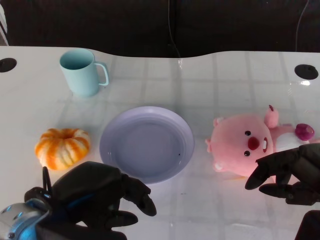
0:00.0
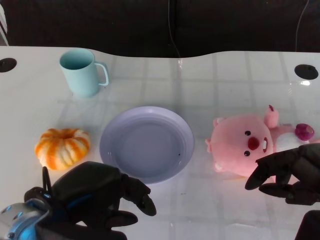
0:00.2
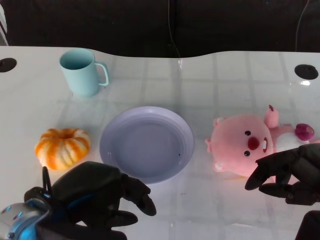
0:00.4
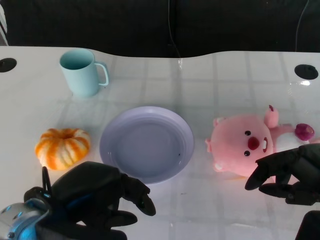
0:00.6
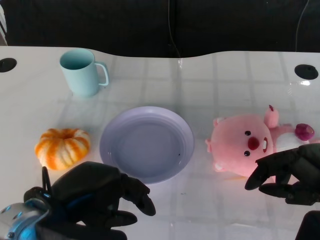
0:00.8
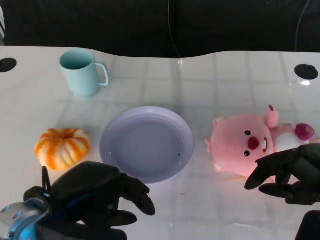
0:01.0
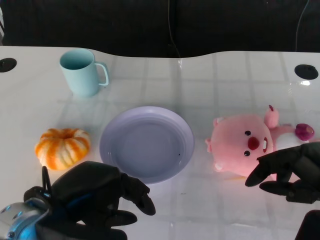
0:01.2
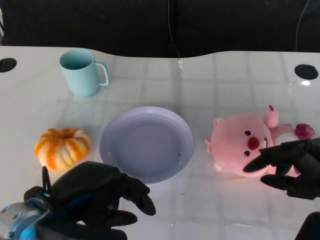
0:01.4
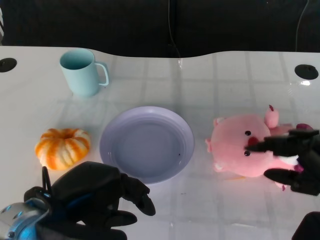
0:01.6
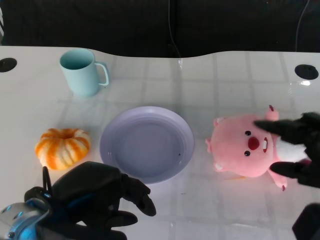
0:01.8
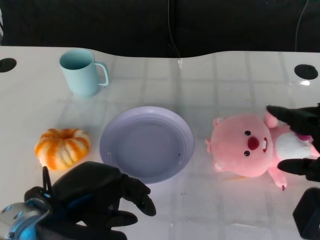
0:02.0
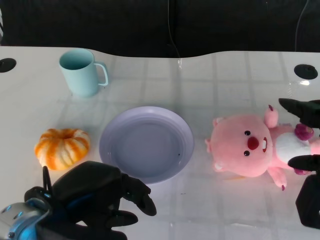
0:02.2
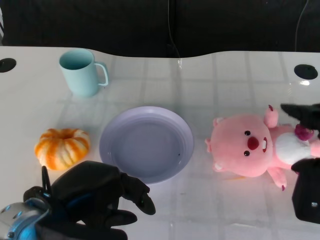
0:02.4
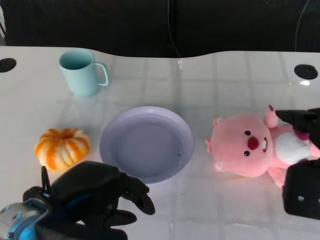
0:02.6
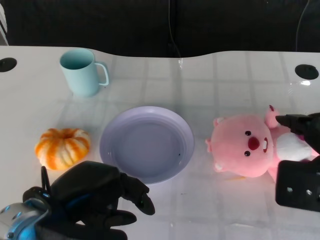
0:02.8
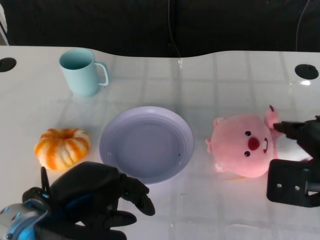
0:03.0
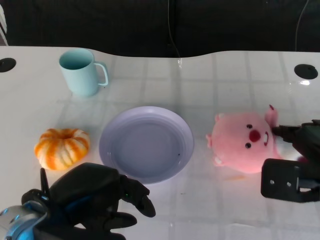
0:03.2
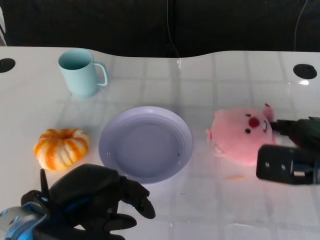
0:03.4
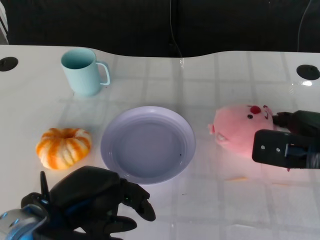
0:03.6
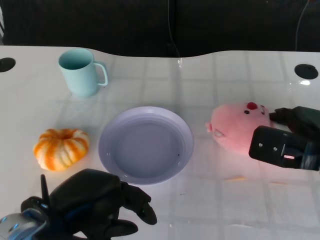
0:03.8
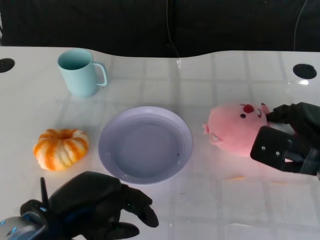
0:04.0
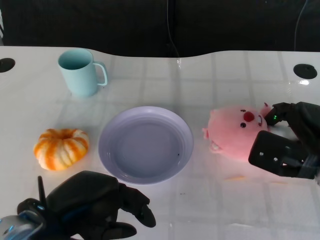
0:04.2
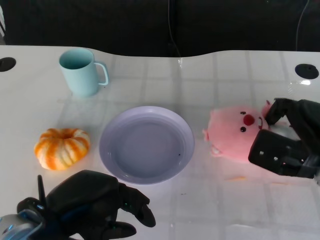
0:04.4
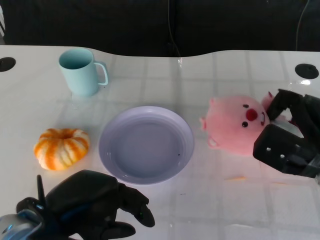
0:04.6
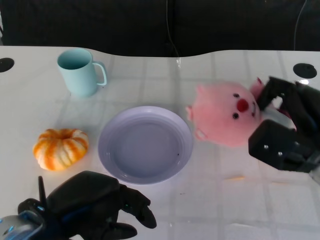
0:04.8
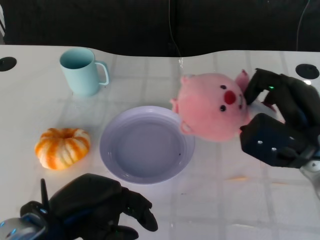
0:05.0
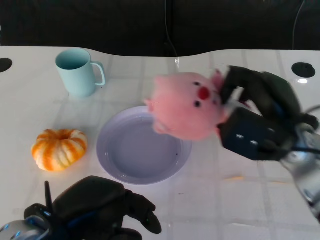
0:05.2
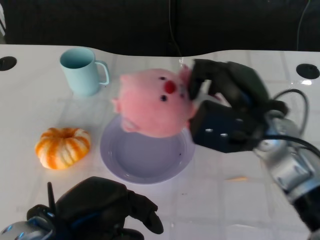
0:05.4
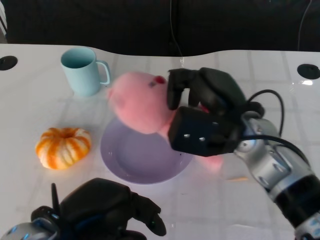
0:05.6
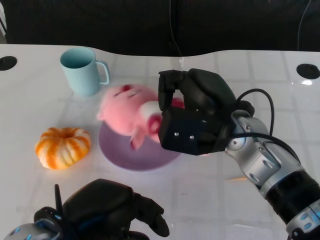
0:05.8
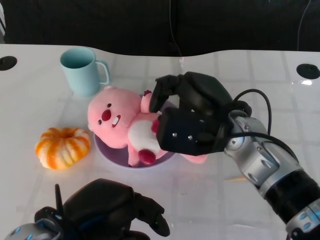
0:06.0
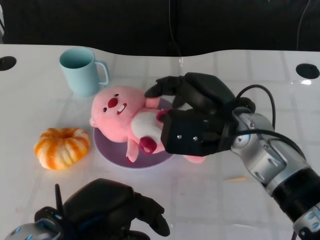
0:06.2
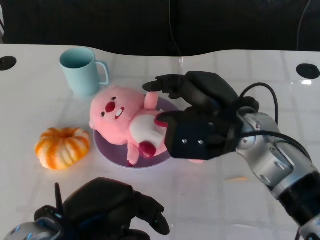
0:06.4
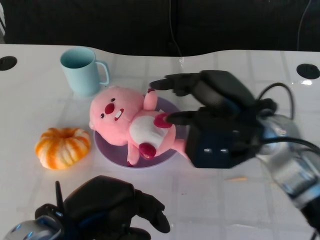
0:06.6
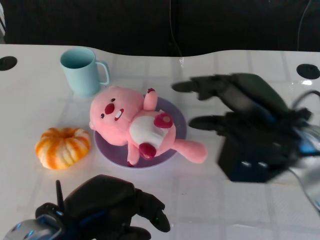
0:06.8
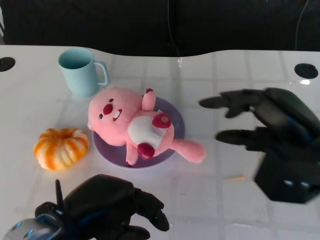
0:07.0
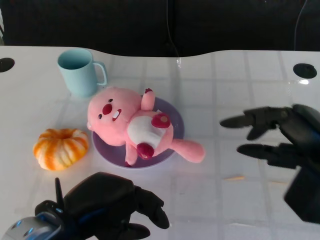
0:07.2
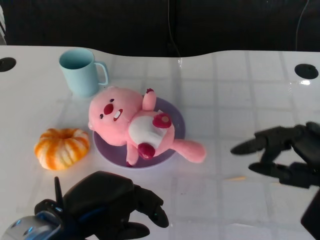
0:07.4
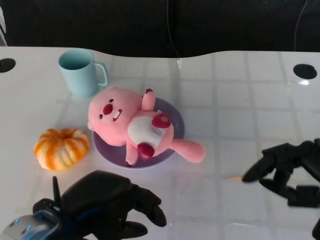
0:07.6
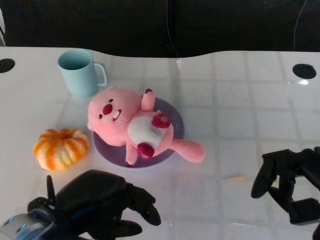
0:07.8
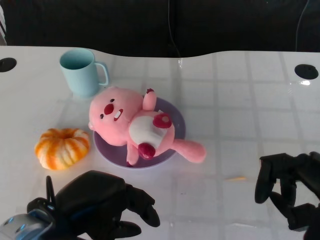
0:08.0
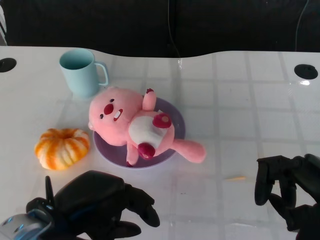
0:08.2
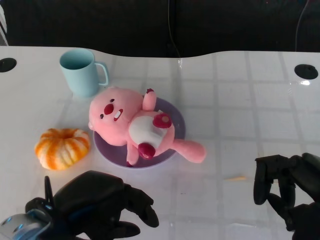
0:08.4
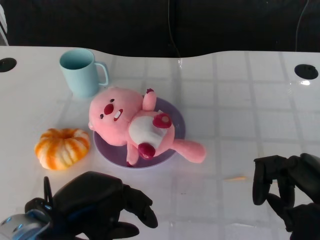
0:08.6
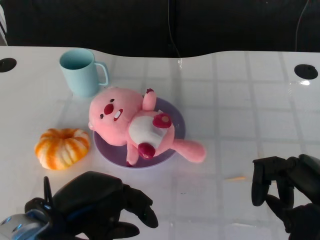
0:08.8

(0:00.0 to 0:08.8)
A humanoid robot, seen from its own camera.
Task of the whole recording: Pick up the doll on the other side of the plate and place it into the plate.
Step, 0:01.4 - 0:04.8: Grasp the pink doll with the right gripper.
Step, 0:05.0 - 0:06.6: Place the pink doll into the plate with the right gripper.
0:03.0 - 0:04.4: The right hand is displaced forward and downward by roughly 10 cm.
0:04.4 - 0:05.8: The right hand is displaced to the left and upward by some 15 cm.
0:05.8 - 0:07.4: The right hand heads to the right and backward, covering approximately 20 cm.
0:07.4 - 0:08.8: The hands stay close to where they were, moving slightly.

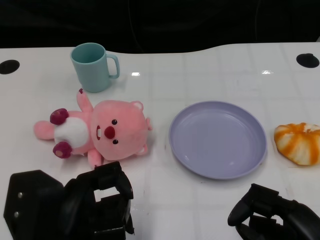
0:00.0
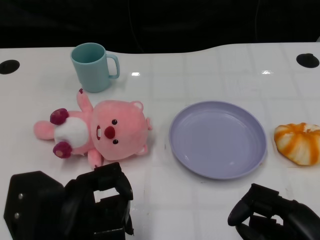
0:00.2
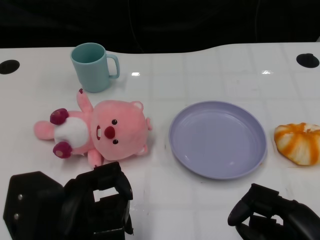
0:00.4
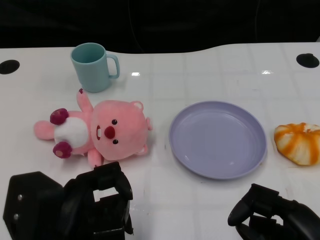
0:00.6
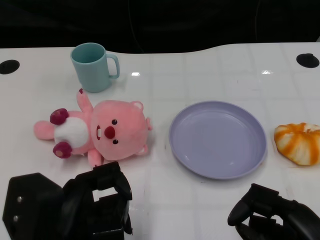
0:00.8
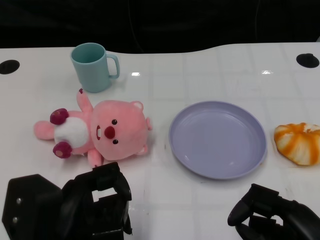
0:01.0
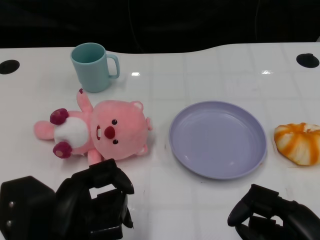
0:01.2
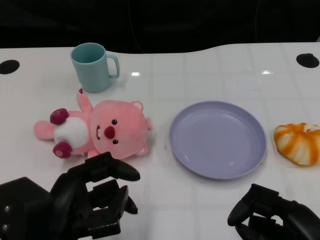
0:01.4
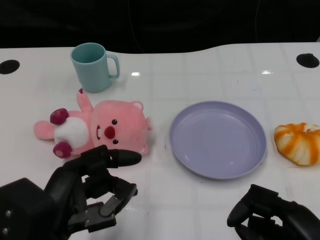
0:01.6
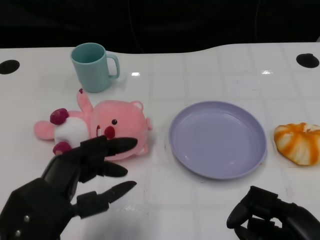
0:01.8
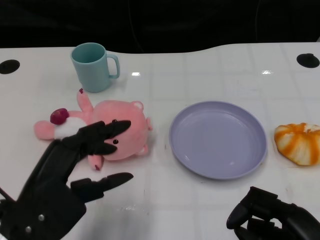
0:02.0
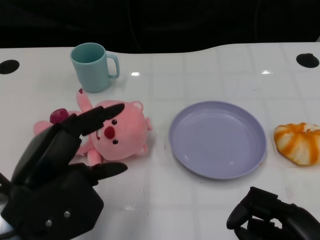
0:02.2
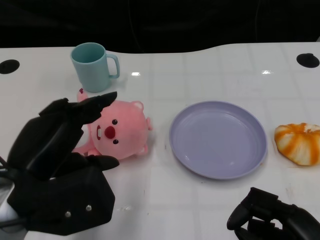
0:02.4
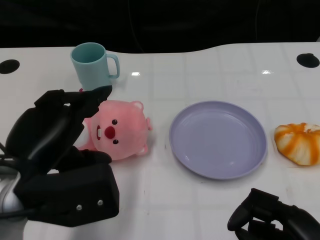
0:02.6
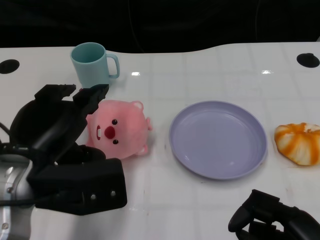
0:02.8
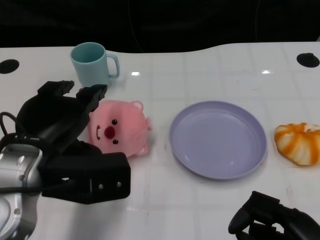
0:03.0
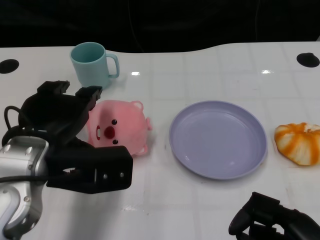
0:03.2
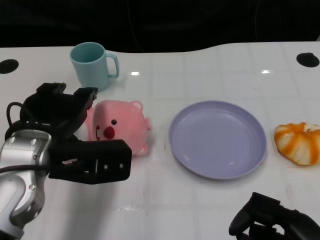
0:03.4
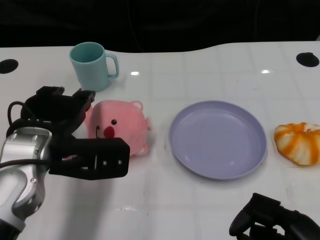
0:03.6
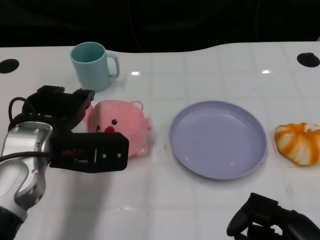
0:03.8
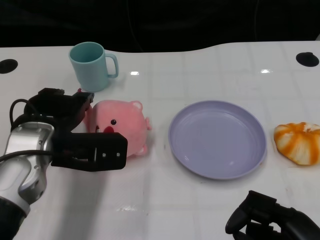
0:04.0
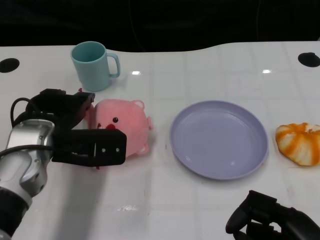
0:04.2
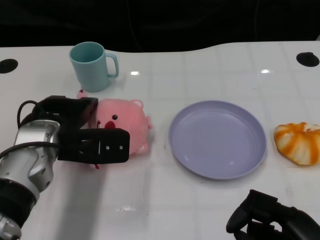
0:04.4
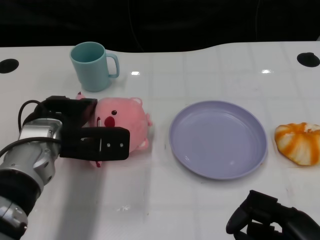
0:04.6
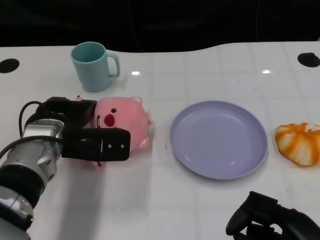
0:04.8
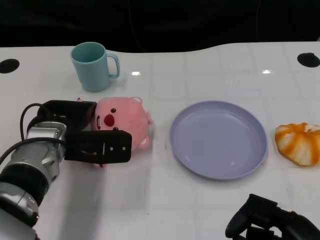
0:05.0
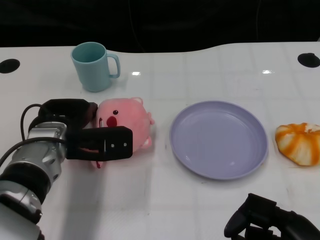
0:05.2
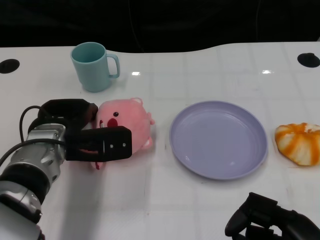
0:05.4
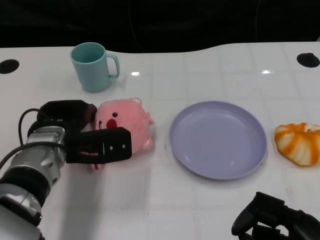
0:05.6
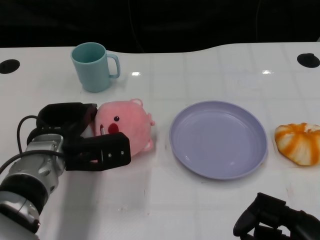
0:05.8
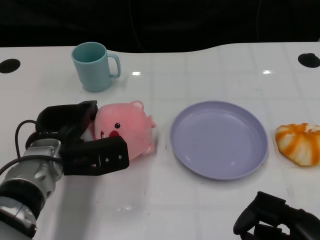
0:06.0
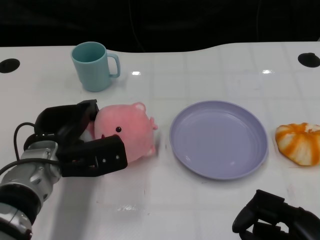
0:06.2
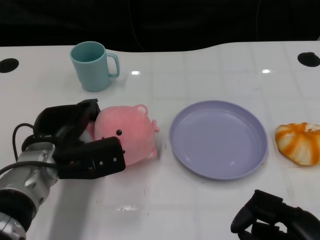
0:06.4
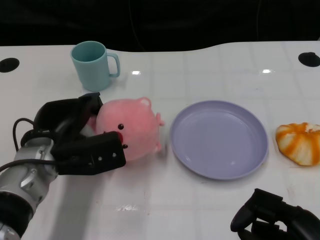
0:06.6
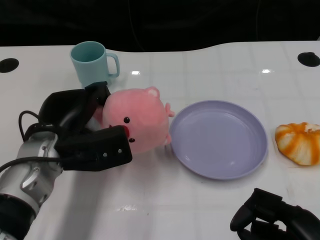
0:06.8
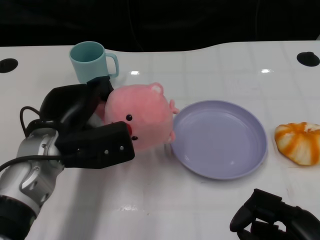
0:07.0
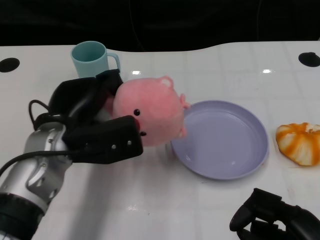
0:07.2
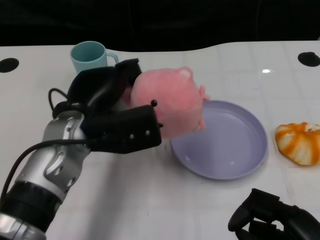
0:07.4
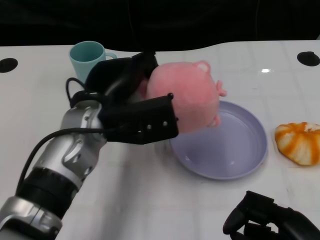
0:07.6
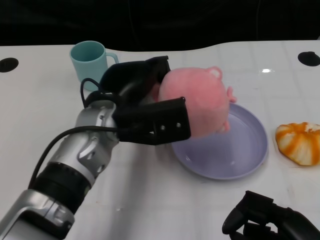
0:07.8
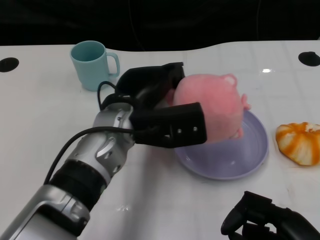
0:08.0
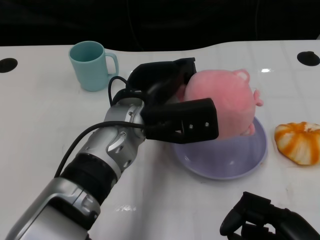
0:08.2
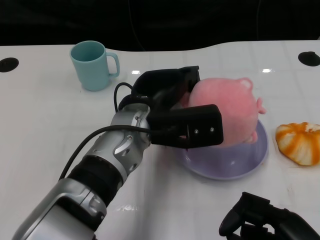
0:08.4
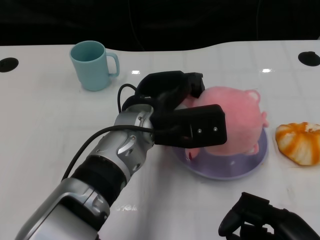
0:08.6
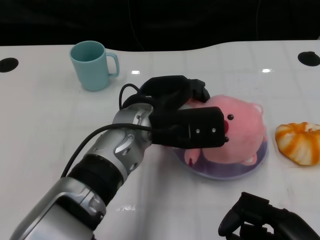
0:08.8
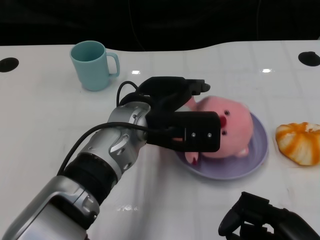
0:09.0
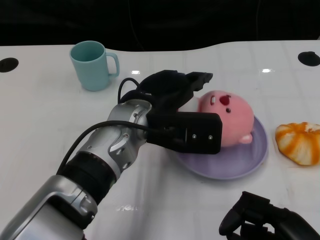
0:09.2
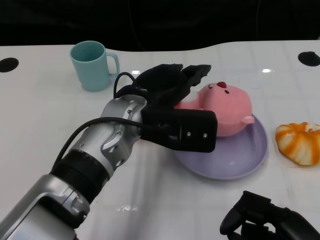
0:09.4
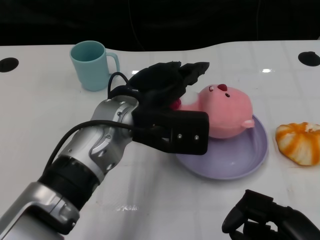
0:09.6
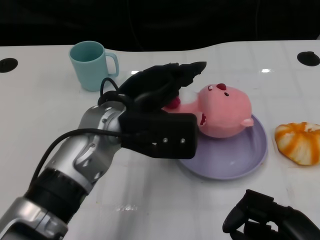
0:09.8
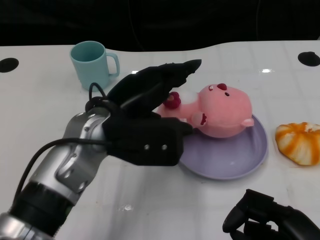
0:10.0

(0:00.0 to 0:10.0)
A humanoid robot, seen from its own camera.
Task of the whole recording: Pick up the doll on one side of the plate and place it into the plate.
Step, 0:00.8 - 0:06.6: Grasp the pink doll with the left gripper.
Step, 0:06.8 - 0:09.4: Place the pink doll into the plate with the left gripper.
0:01.4 - 0:02.8: The left hand moves forward and upward, about 10 cm.
0:02.8 - 0:04.2: The left hand travels forward by some 10 cm.
0:04.2 - 0:05.8: The left hand travels downward by roughly 5 cm.
0:05.8 - 0:07.2: The left hand moves upward, some 5 cm.
0:07.2 - 0:08.6: The left hand shifts roughly 10 cm to the right.
0:08.6 - 0:10.0: The left hand is displaced to the left by approximately 5 cm.

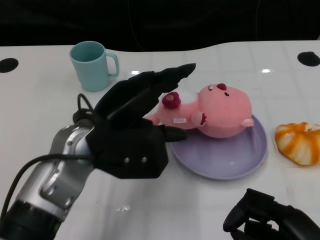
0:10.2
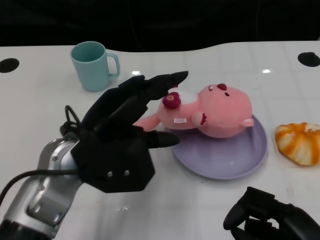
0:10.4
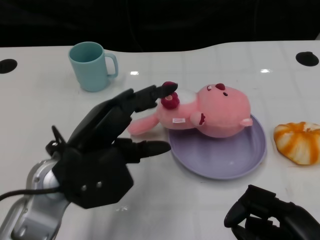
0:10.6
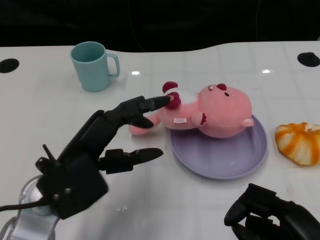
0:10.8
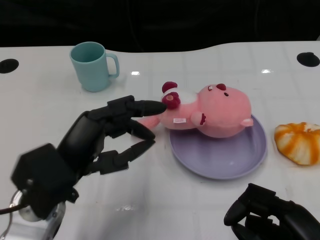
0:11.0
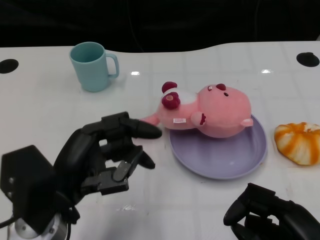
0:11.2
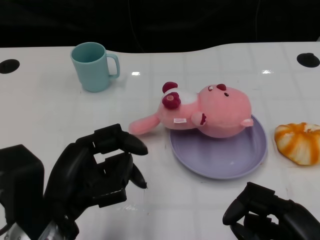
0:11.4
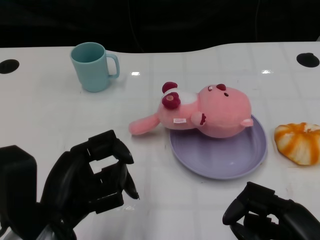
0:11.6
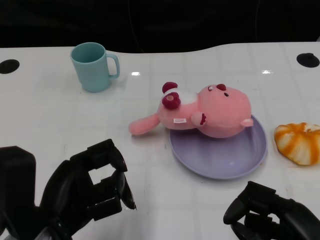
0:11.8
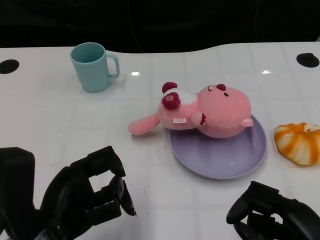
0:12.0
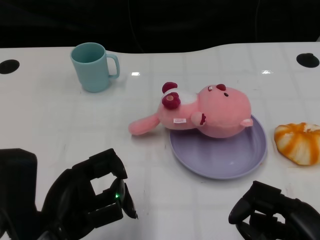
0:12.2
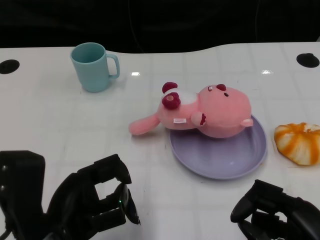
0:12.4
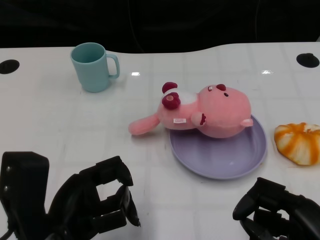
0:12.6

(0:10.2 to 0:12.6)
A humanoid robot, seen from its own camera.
Task of the whole recording: Pick up the doll on one side of the plate and place it into the plate.
0:10.2 - 0:11.4: The left hand heads backward and to the left, covering approximately 10 cm.

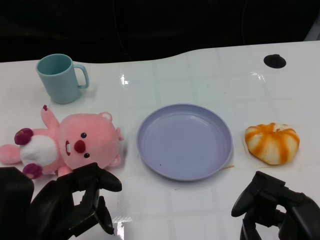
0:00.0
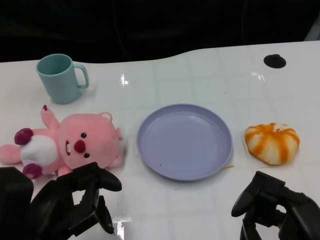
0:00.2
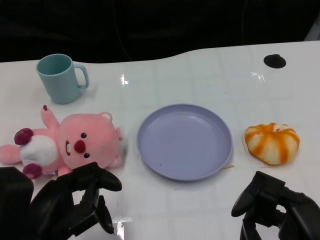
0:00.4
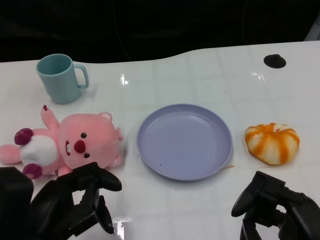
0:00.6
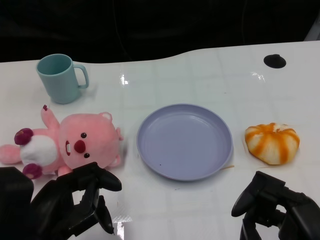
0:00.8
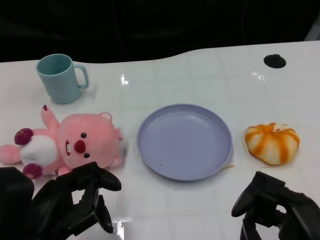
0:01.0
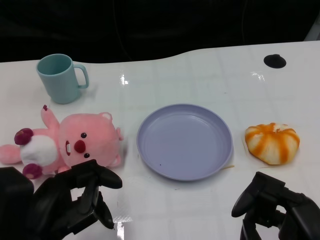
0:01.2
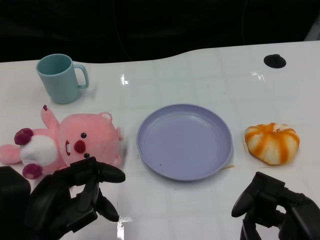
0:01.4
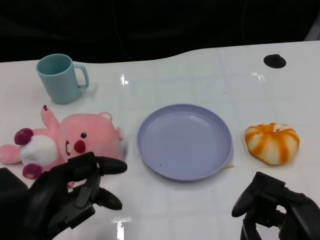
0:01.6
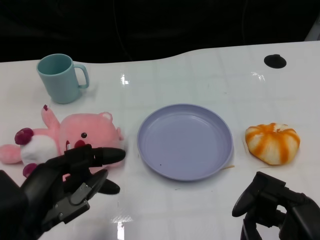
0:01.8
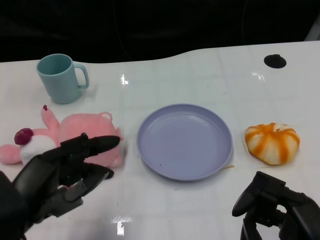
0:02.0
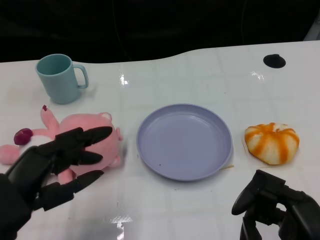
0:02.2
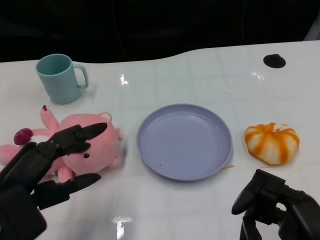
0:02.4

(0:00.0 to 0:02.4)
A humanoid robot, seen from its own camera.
Task of the whole recording: Pick up the doll on one side of the plate and place it into the plate.
0:01.2 - 0:02.4: The left hand moves approximately 5 cm.
